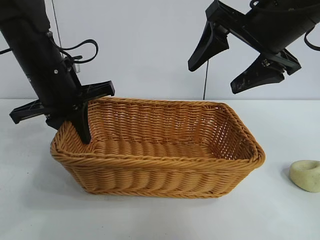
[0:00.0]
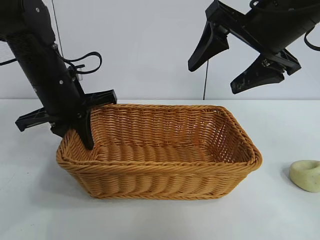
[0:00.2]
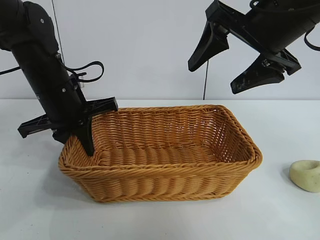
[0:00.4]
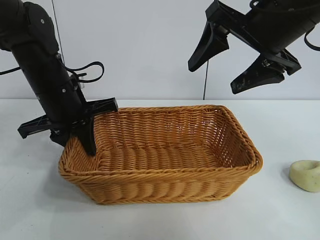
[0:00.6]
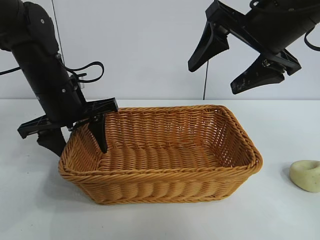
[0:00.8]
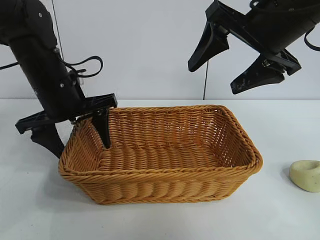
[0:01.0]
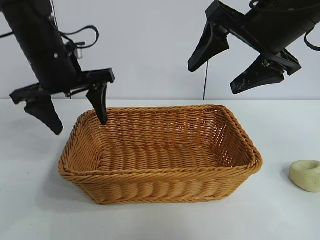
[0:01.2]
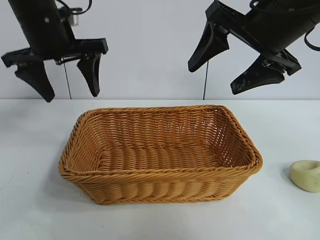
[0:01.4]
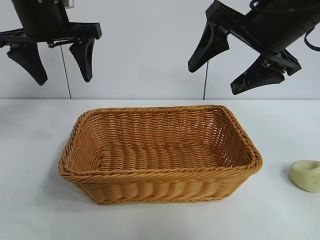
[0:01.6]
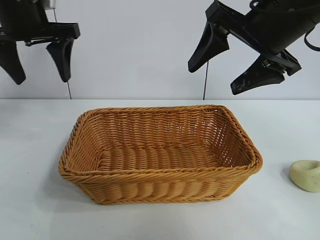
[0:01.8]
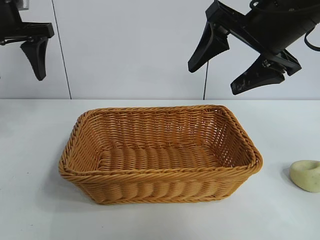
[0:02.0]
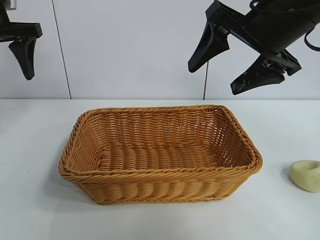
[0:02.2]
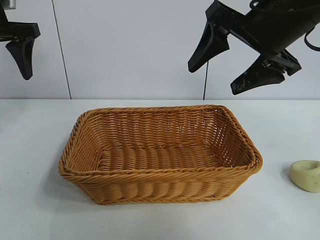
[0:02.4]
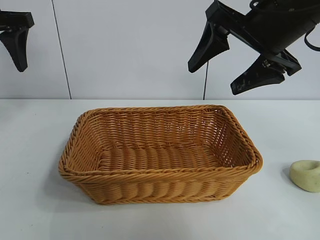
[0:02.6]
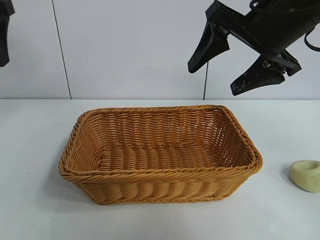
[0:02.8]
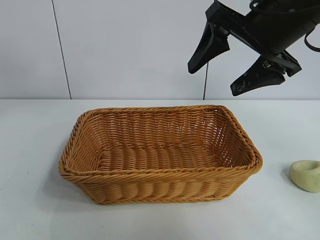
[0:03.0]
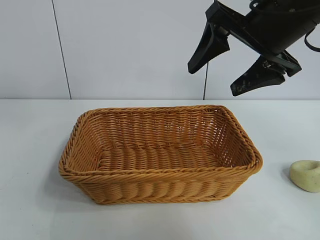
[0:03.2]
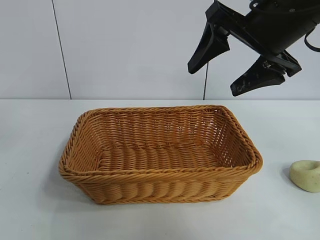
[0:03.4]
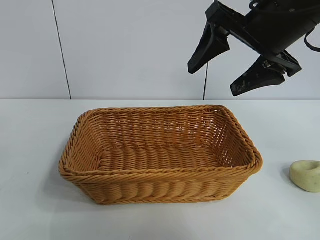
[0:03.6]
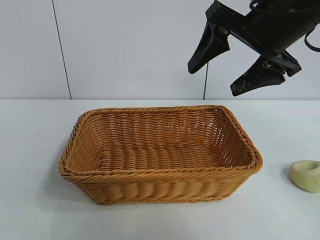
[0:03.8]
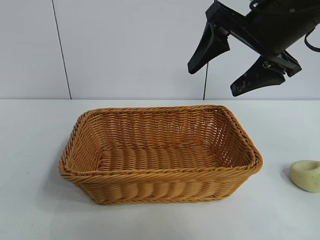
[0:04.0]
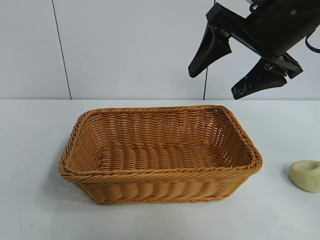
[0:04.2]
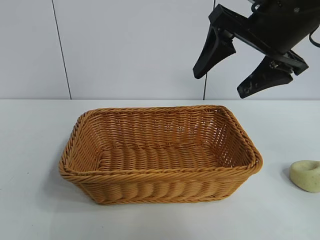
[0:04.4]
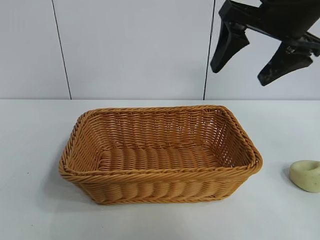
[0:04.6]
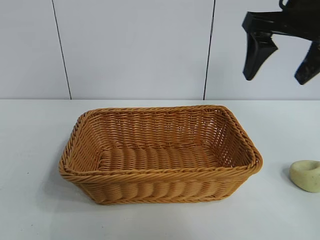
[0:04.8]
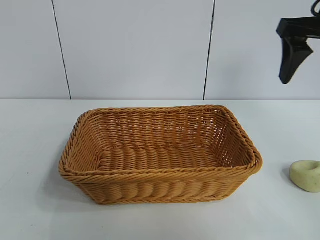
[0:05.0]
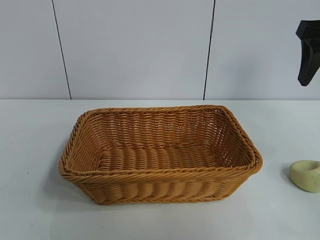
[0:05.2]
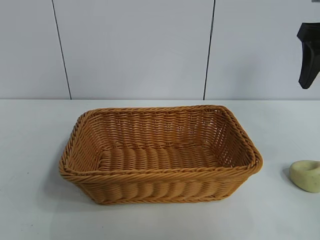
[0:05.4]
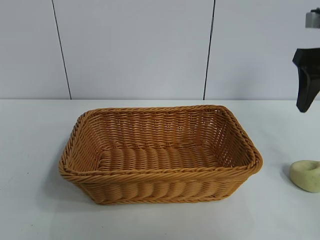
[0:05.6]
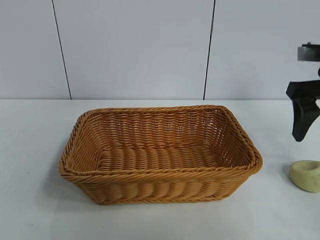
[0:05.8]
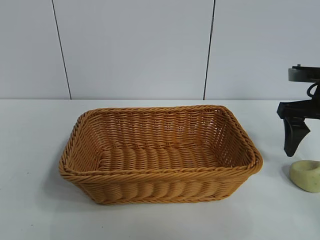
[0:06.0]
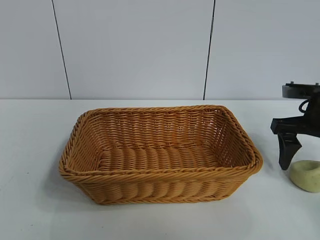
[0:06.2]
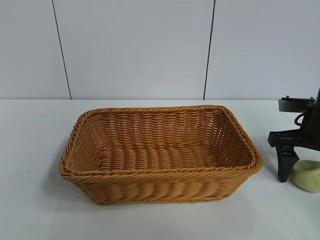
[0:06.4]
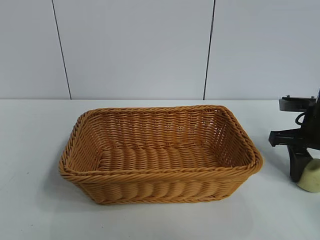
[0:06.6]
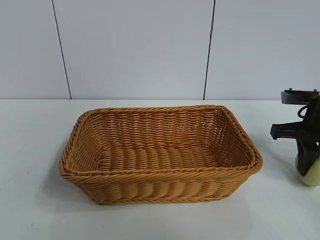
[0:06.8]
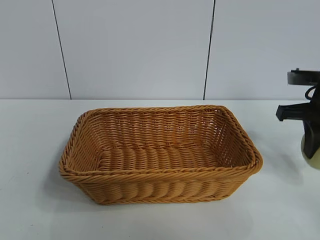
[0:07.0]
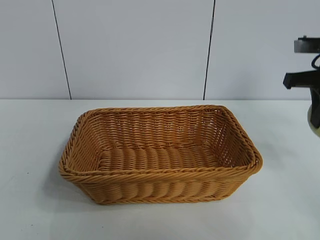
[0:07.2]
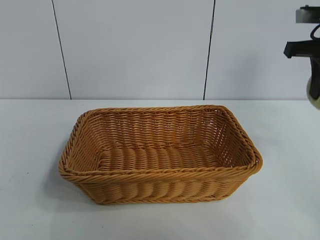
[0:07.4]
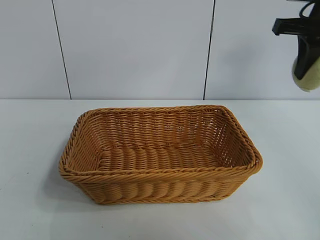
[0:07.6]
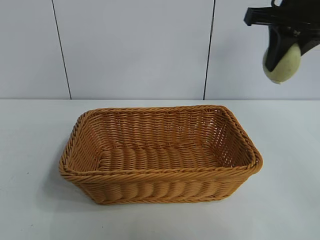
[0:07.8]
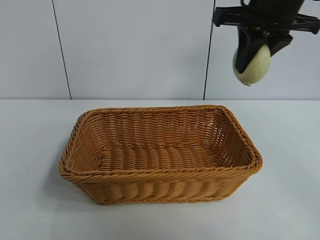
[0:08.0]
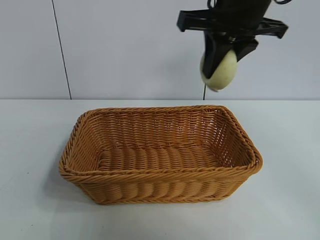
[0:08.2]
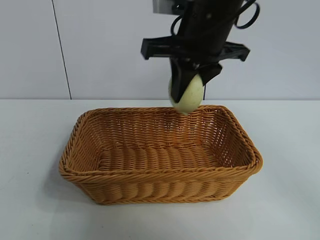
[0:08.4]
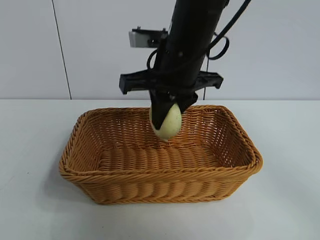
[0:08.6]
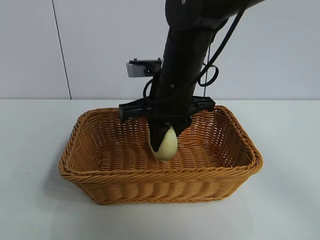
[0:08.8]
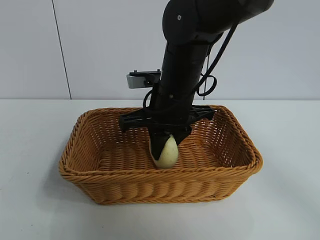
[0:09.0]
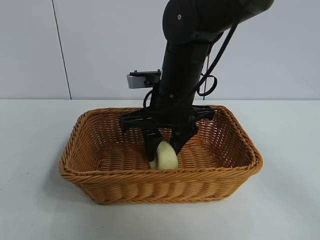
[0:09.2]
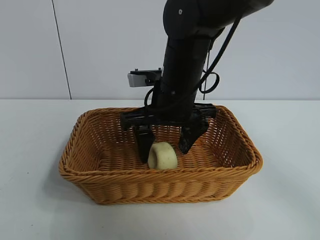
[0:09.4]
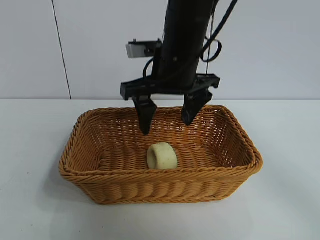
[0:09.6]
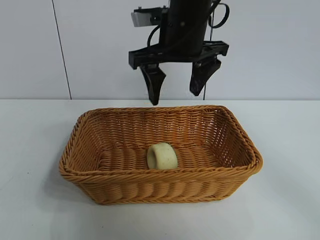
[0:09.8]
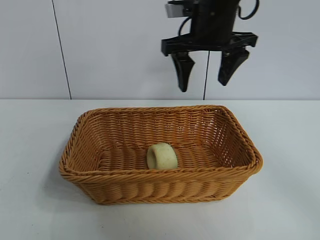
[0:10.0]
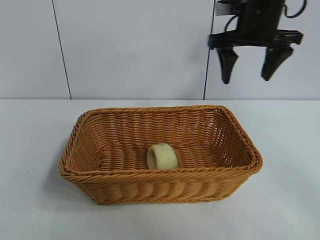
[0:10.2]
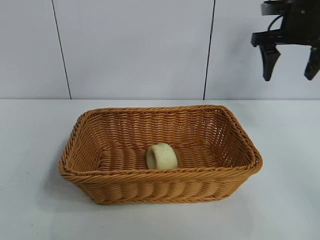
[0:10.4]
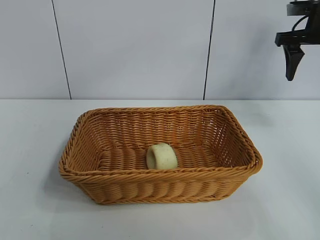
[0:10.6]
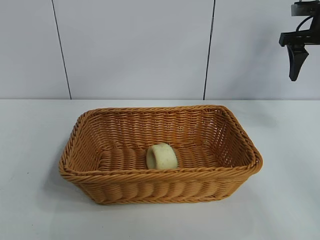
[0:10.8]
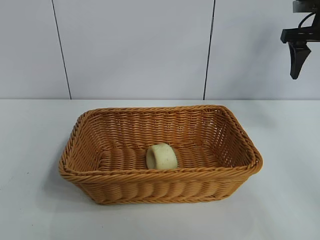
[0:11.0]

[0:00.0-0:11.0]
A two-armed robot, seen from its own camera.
Task of the whole recording: pick up the egg yolk pastry and put it into the basket.
Step, 0:01.2 to 0:06.6: Grasp egg yolk pastry with right gripper.
Step, 0:07.0 to 0:09.4: Place the egg yolk pastry in the basket with right gripper.
